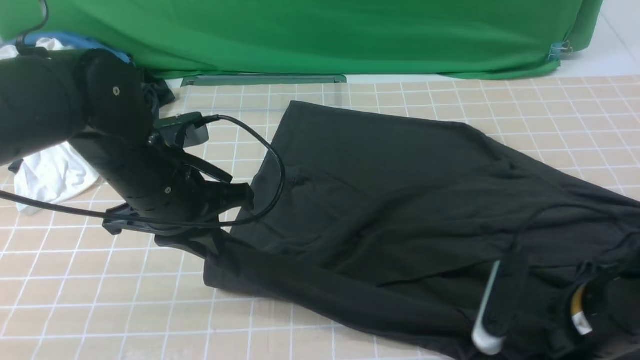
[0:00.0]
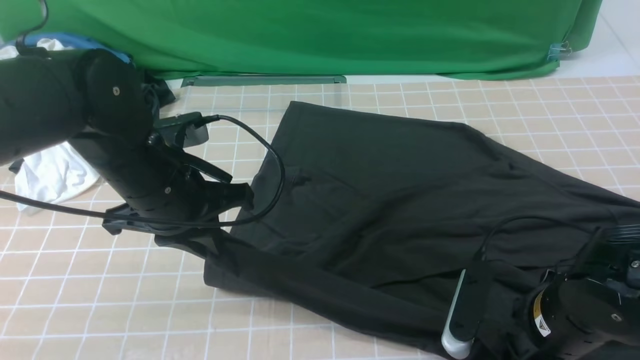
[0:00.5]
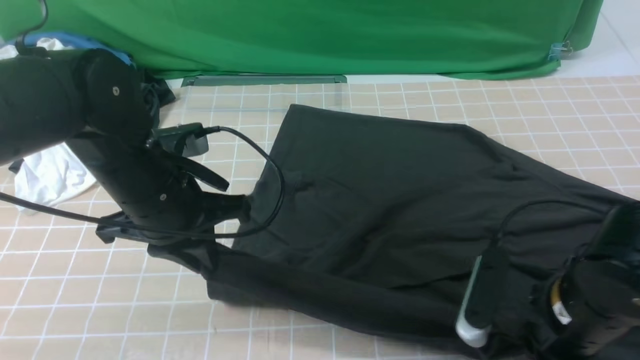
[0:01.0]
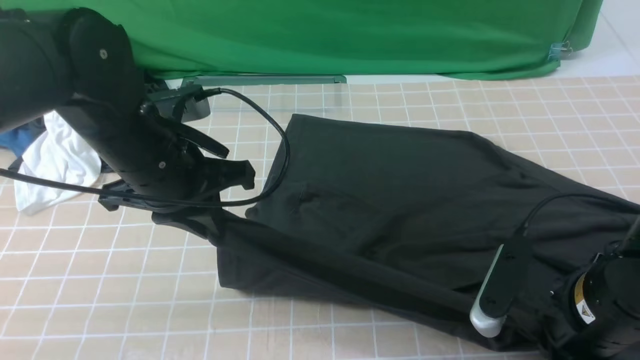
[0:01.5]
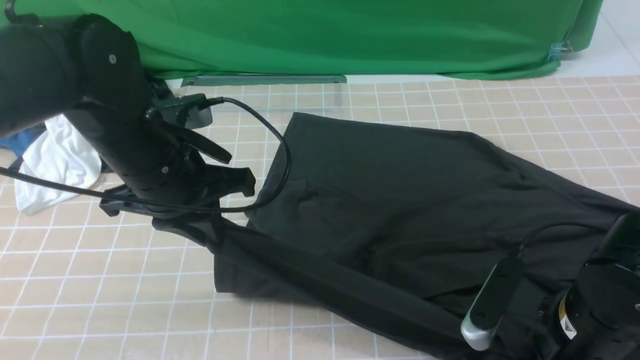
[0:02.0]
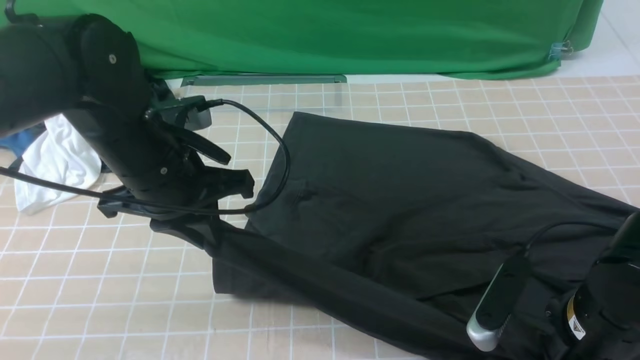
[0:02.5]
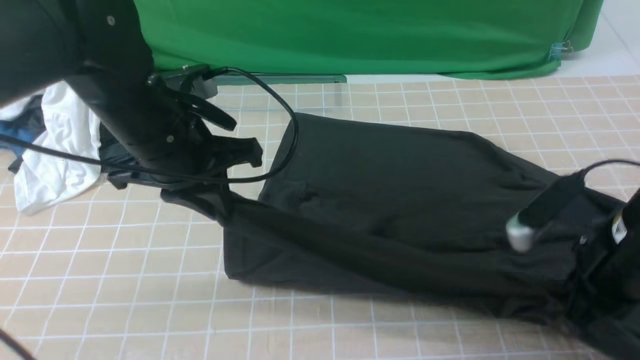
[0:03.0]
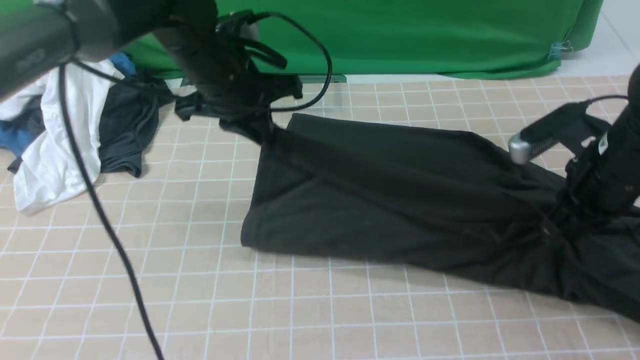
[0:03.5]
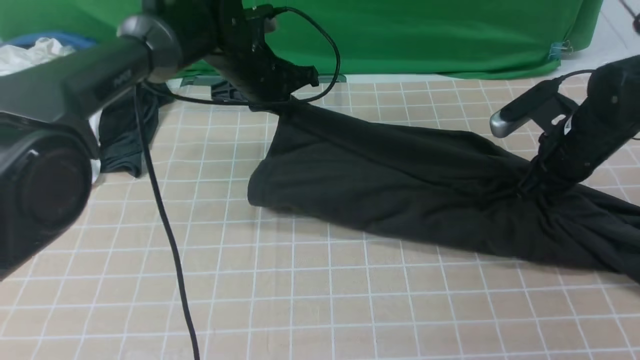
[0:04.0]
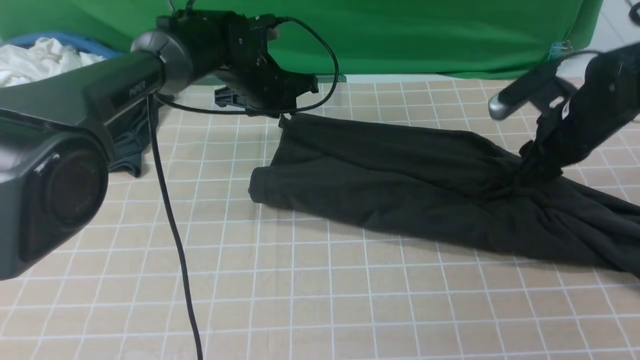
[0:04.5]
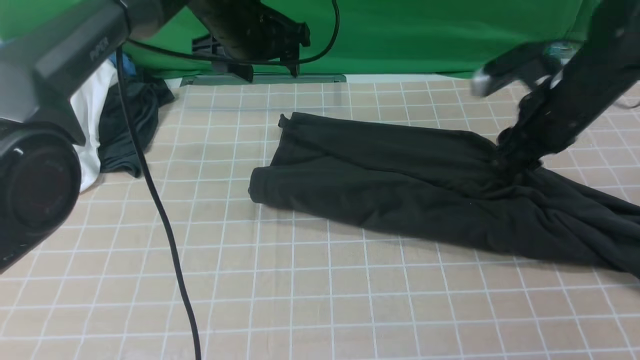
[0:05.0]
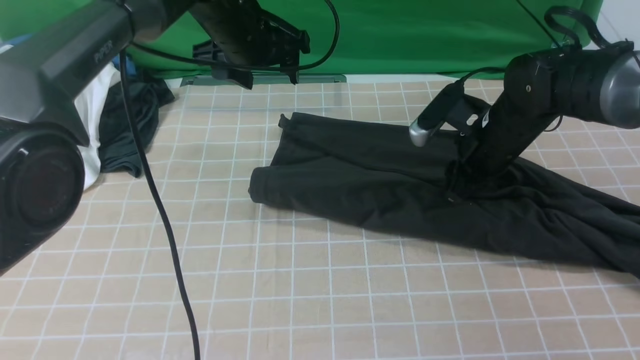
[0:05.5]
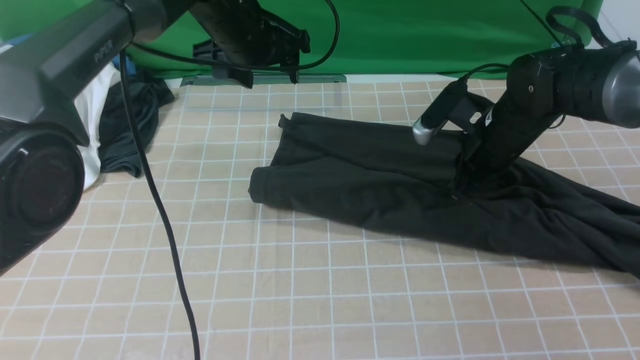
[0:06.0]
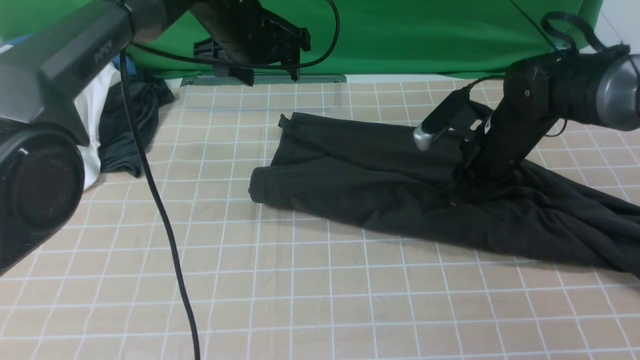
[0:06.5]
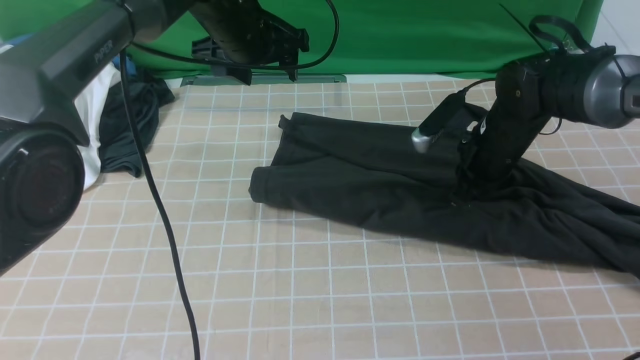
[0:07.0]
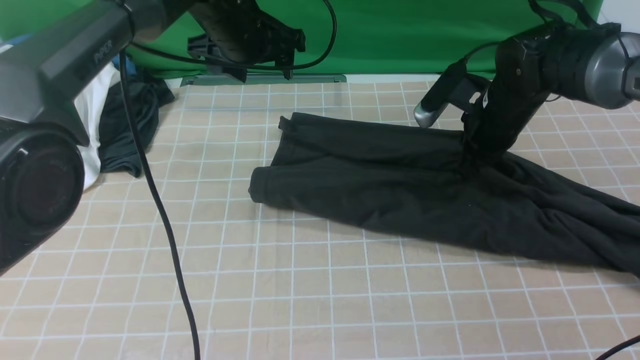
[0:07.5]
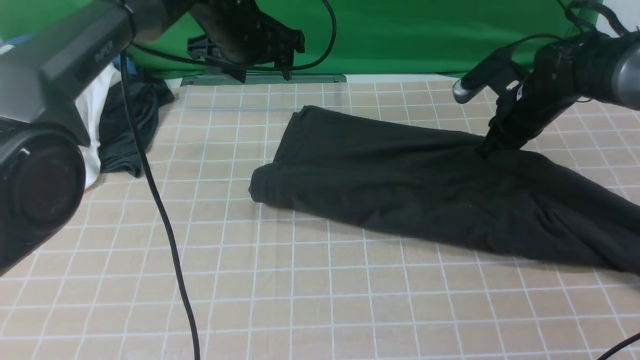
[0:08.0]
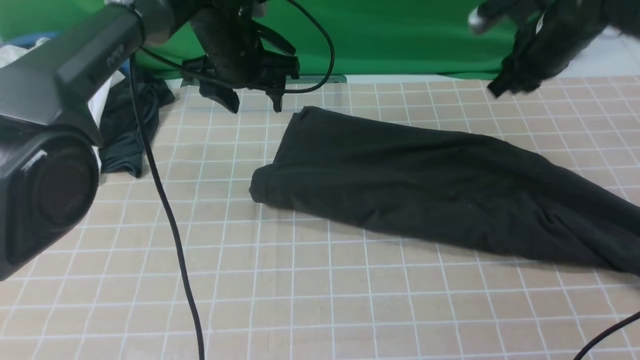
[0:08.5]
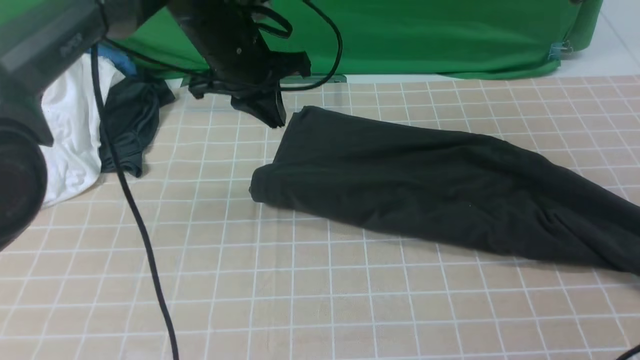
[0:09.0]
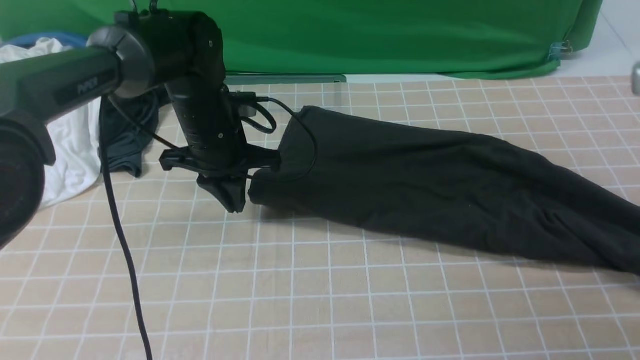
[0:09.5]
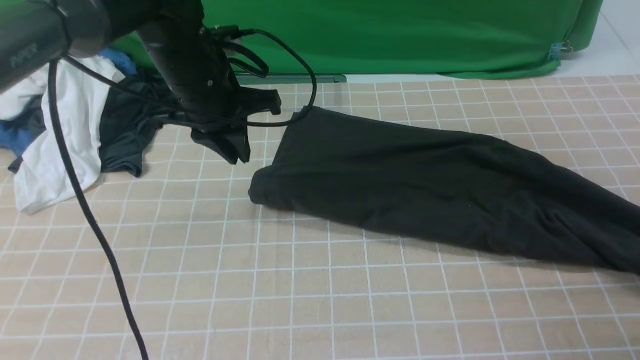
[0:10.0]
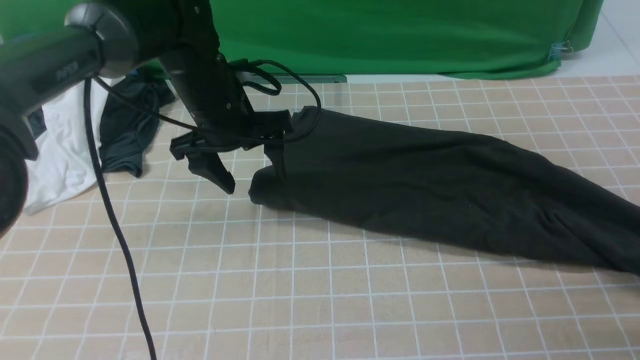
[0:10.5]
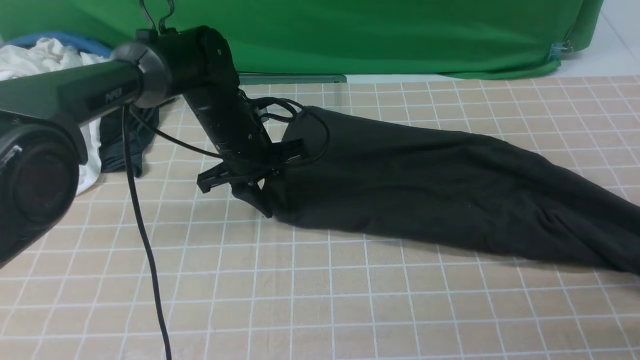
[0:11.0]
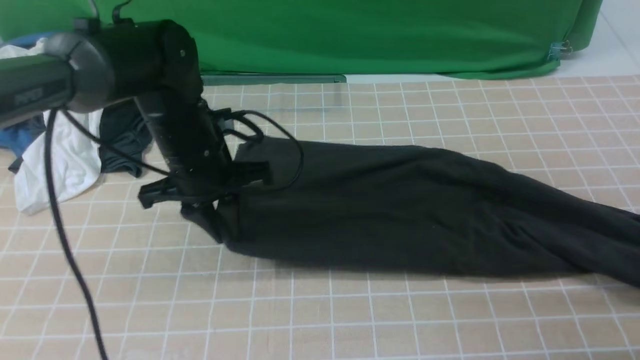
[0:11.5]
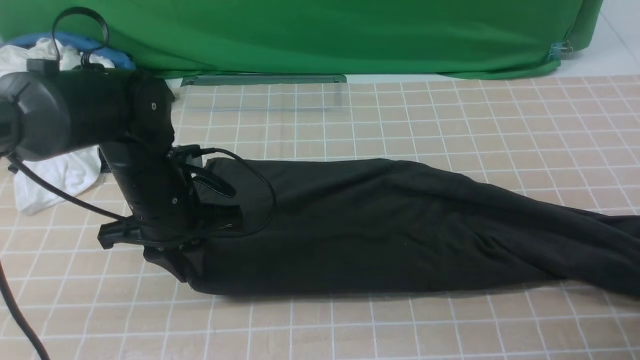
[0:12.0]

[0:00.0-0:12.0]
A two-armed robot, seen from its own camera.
Step, 0:01.0 to 0:08.0: use both arms to drag the lower edge of the fabric forward and fold it over the upper edge.
0:00.0 to 0:02.0: The right gripper closes.
0:02.0 to 0:04.0: The grippers both shift forward by roughly 20 cm.
0:04.0 to 0:06.0: The right gripper moves to the left, some 10 cm, and opens, then closes again. The left gripper travels upward by roughly 5 cm, and opens its fingers.
0:06.0 to 0:08.0: The right gripper moves forward and to the right, approximately 10 cm.
0:08.0 to 0:10.0: The right gripper goes roughly 25 cm backward, to the right and upward, while the left gripper goes about 10 cm backward, and closes its fingers.
0:10.0 to 0:12.0: The left gripper travels backward and downward by approximately 10 cm, and opens, then closes once more. Meanwhile the right gripper shifts some 5 cm downward, and opens its fingers.

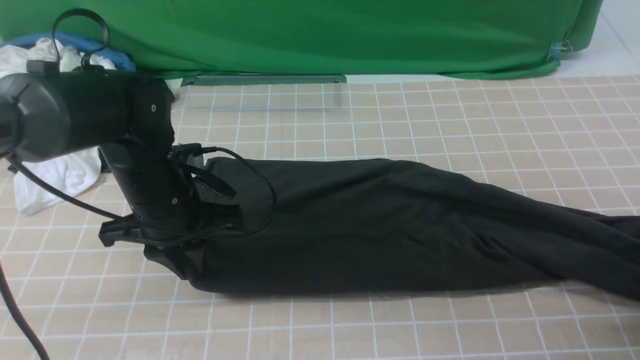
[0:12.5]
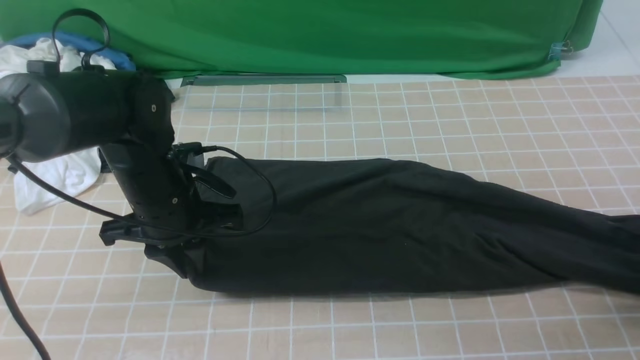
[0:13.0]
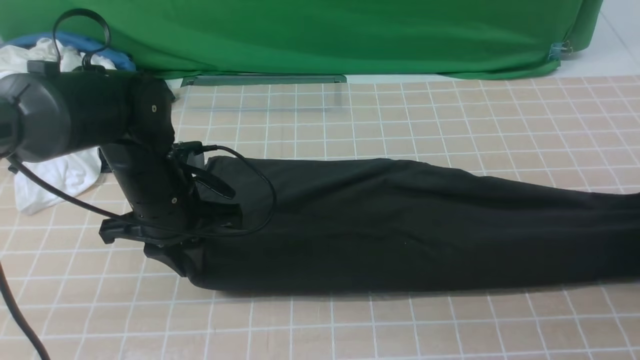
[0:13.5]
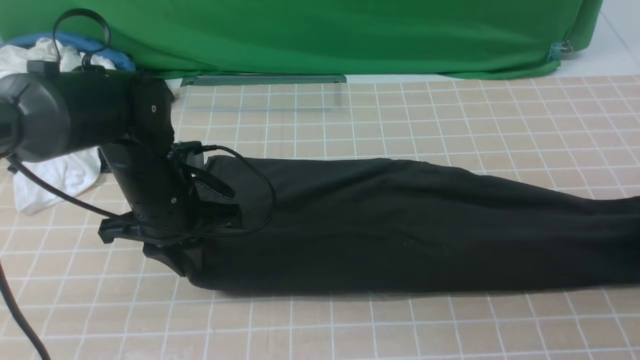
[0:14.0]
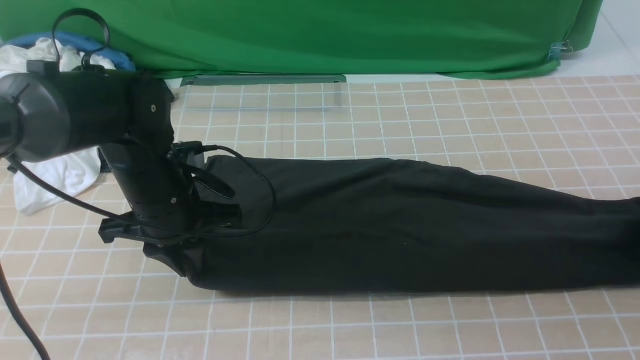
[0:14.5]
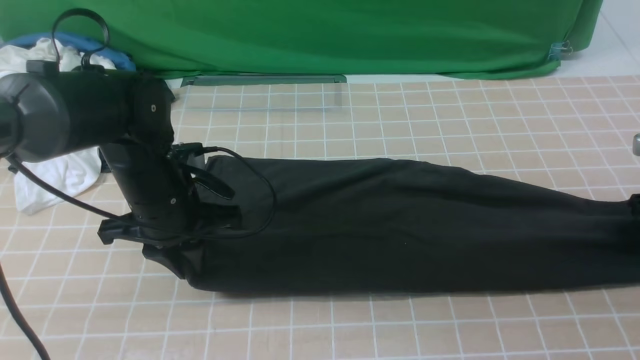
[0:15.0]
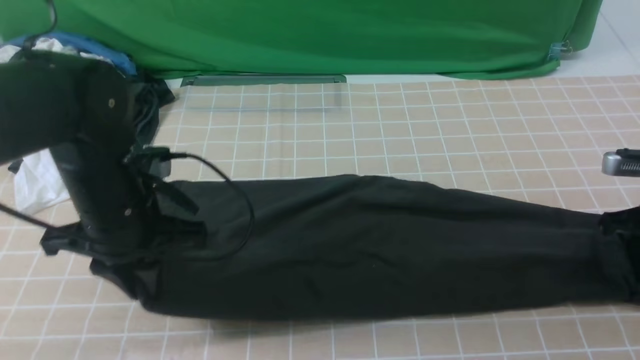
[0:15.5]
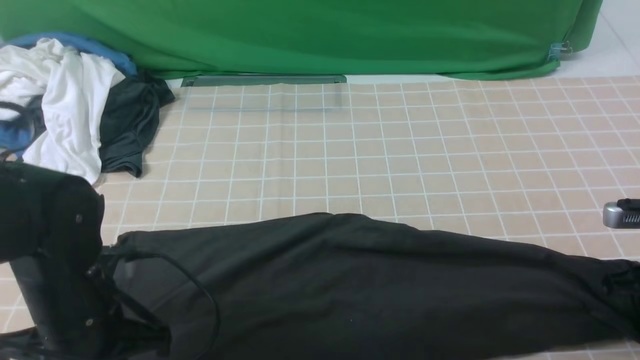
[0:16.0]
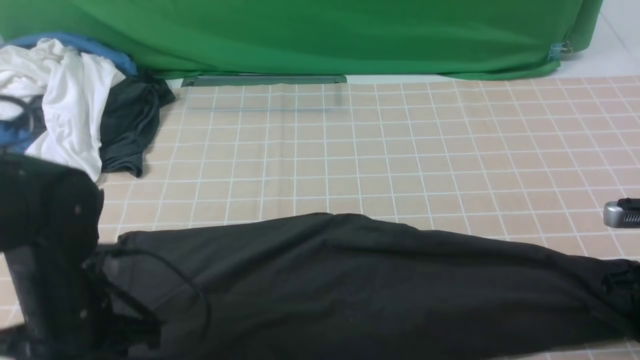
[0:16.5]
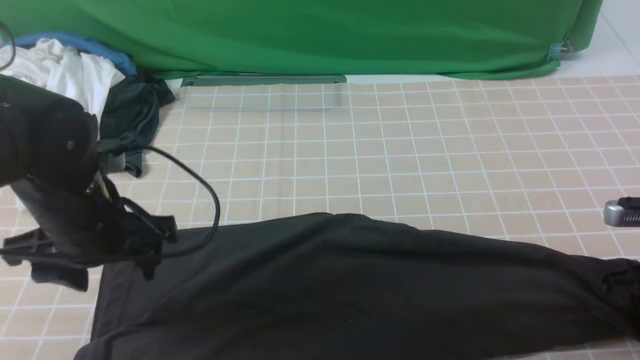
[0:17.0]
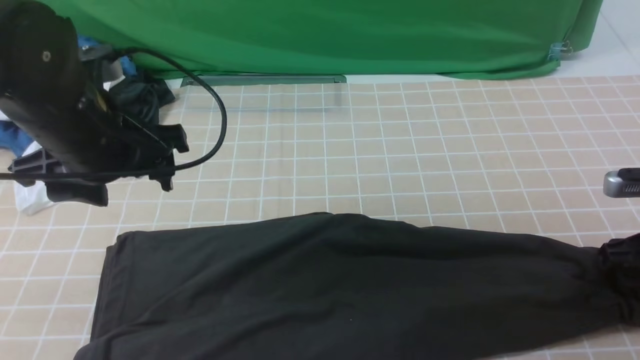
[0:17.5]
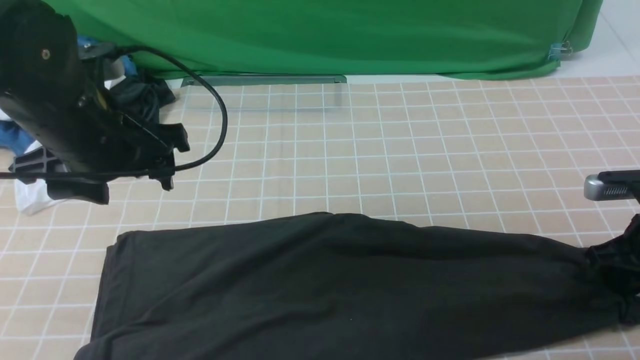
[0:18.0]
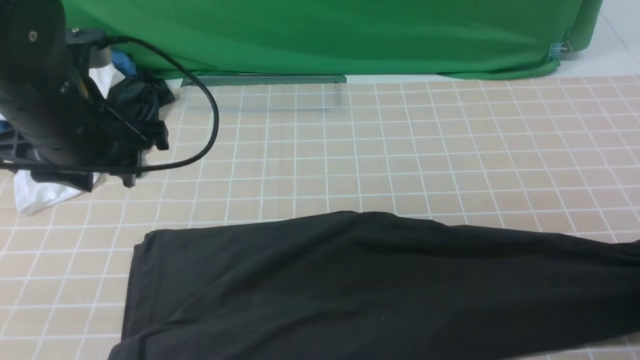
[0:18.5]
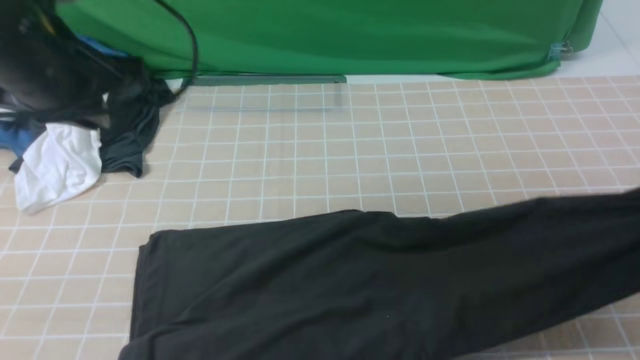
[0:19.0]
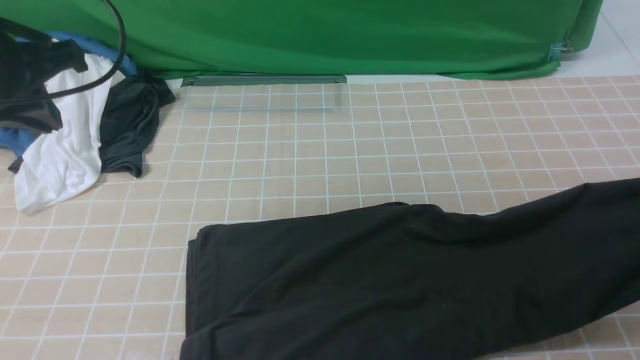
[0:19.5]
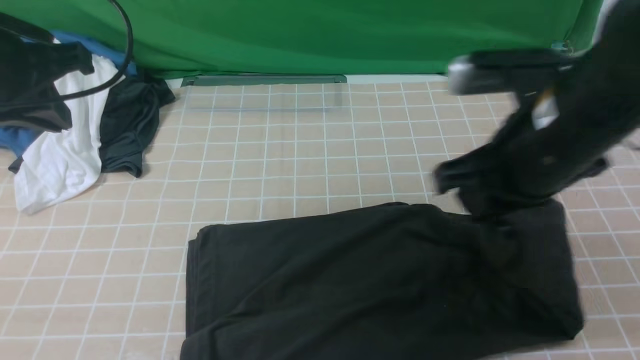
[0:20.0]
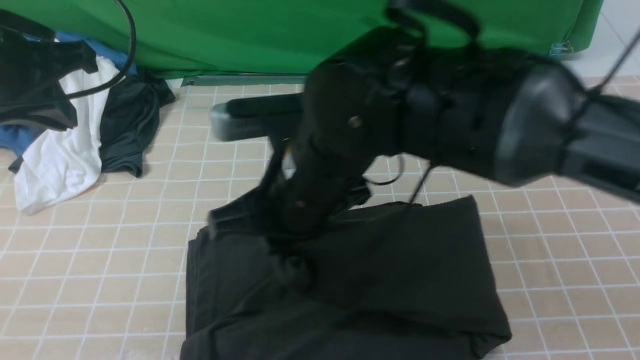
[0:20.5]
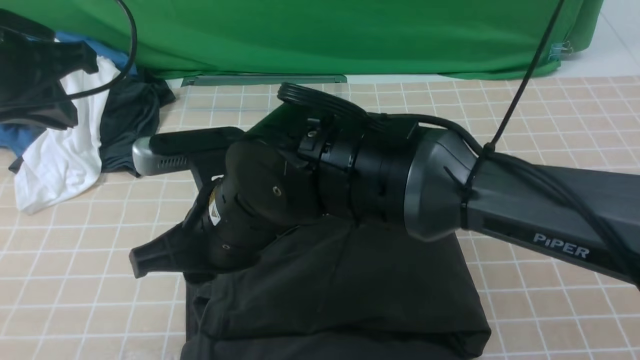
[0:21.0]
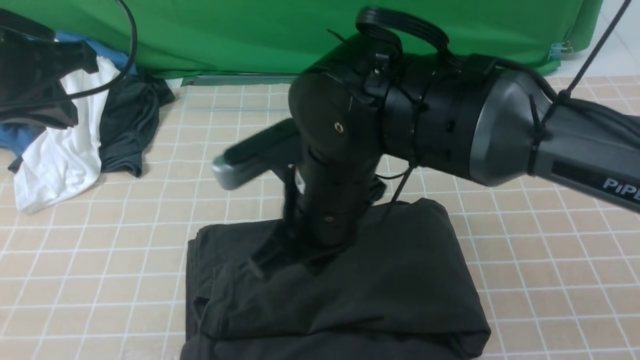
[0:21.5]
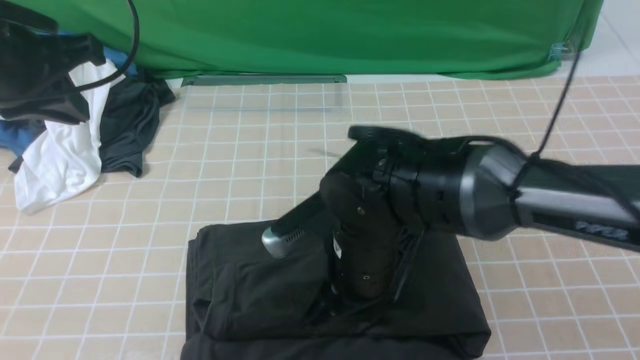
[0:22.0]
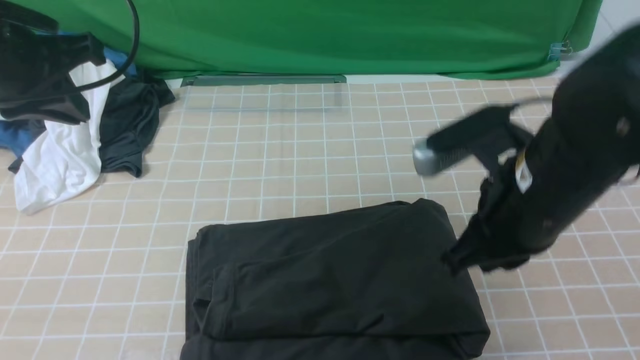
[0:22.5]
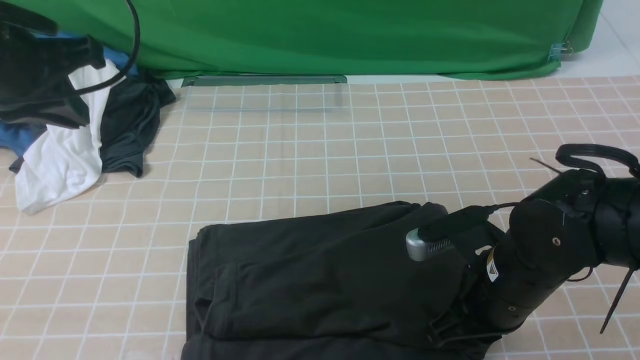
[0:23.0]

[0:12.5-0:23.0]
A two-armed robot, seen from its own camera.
Step, 0:12.5 to 0:18.0: use the right arm to clamp the right edge of the fabric.
Step, 0:18.5 to 0:21.0: use the right arm to drag the right edge of the fabric to the left and folds it over the left edge.
0:12.5 to 0:14.5: The right gripper goes some 10 cm forward, and closes, then reopens.
0:14.5 to 0:16.5: The left gripper goes roughly 10 cm backward, and opens up, while the right gripper travels backward and to the left by some 10 cm, and closes its fingers.
0:16.5 to 0:19.0: The left gripper heads upward and forward, covering approximately 15 cm, and closes its fingers; the right gripper is displaced upward by approximately 15 cm, and opens, then closes once more.
0:19.0 to 0:21.0: The right gripper heads to the left, covering about 40 cm.
0:21.0 to 0:23.0: The right gripper is displaced to the right by roughly 20 cm, and closes.
